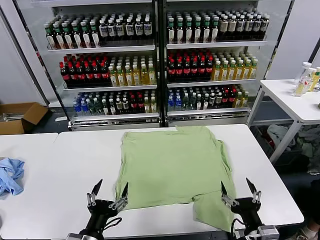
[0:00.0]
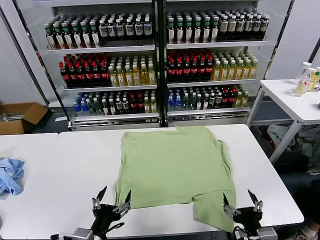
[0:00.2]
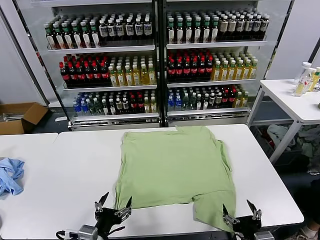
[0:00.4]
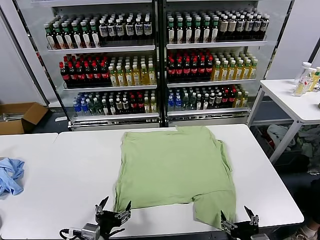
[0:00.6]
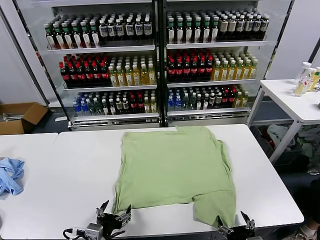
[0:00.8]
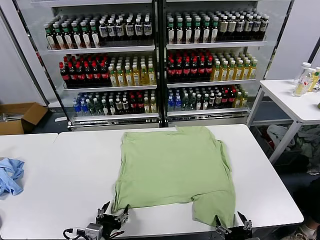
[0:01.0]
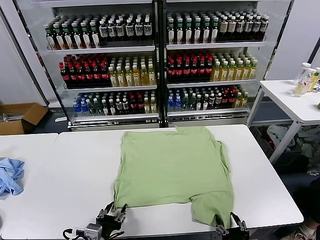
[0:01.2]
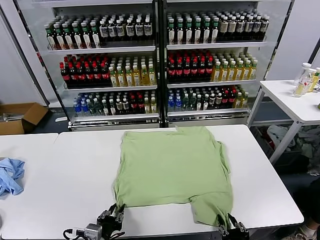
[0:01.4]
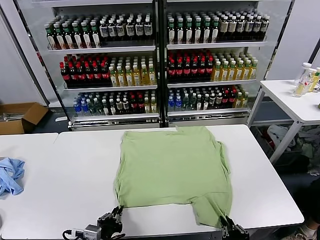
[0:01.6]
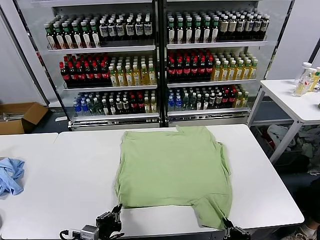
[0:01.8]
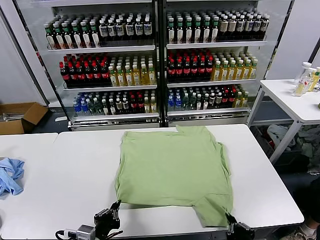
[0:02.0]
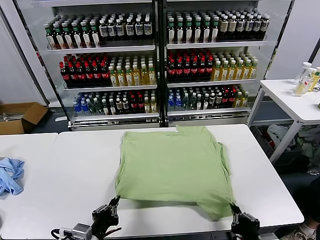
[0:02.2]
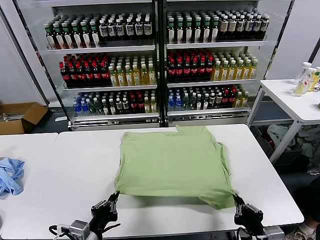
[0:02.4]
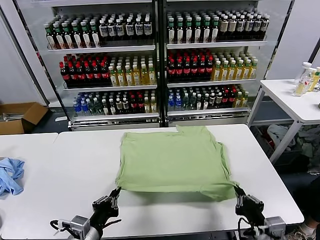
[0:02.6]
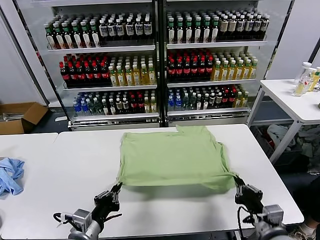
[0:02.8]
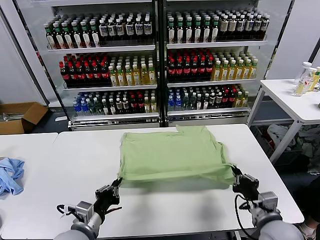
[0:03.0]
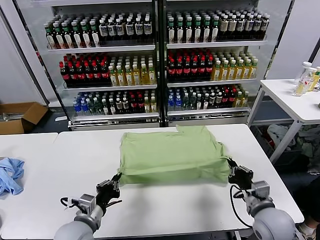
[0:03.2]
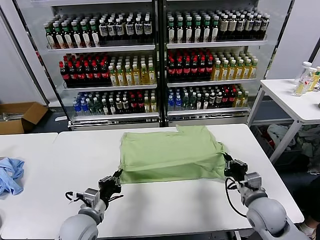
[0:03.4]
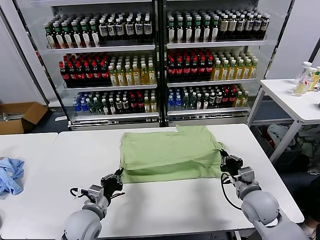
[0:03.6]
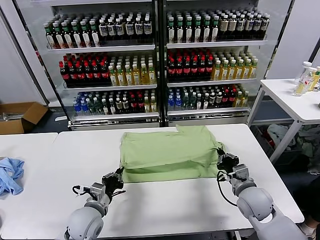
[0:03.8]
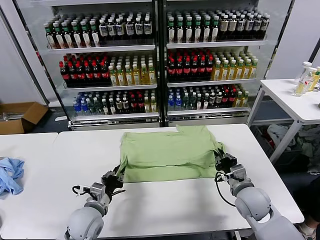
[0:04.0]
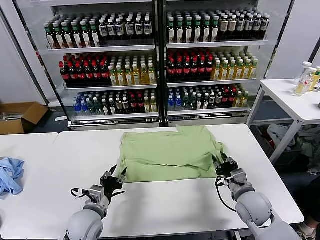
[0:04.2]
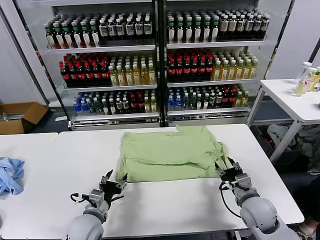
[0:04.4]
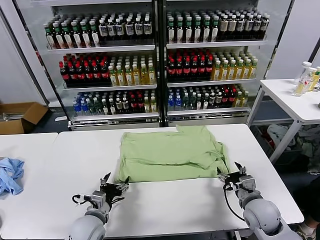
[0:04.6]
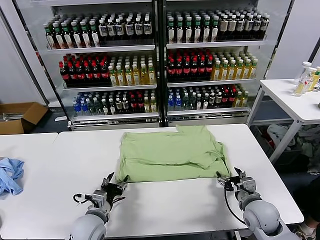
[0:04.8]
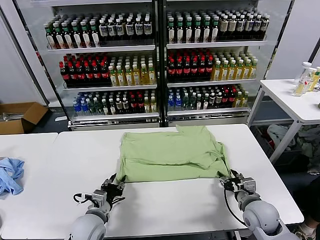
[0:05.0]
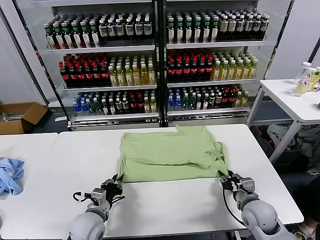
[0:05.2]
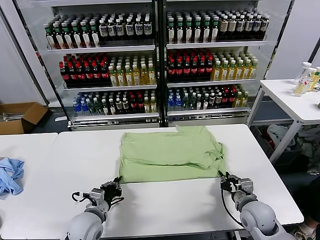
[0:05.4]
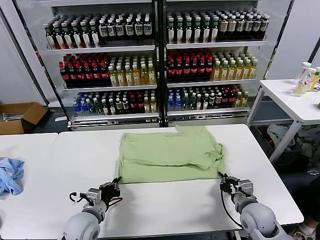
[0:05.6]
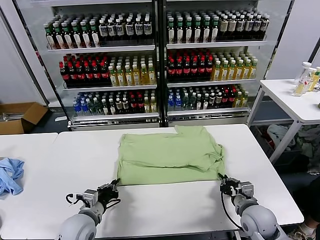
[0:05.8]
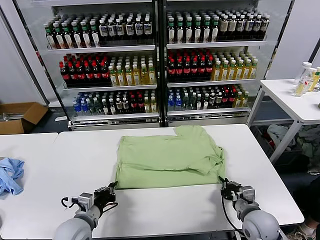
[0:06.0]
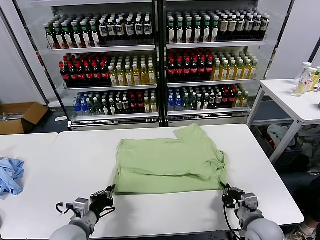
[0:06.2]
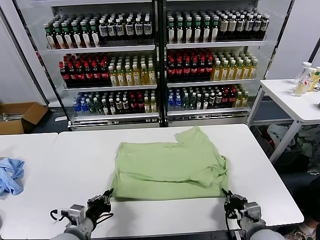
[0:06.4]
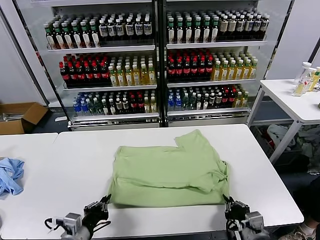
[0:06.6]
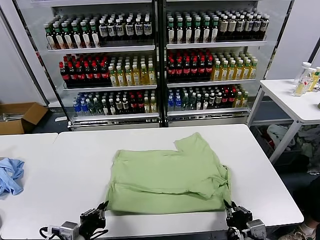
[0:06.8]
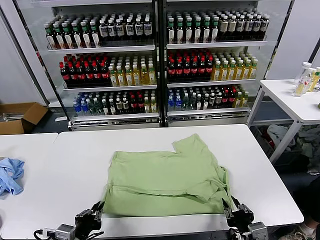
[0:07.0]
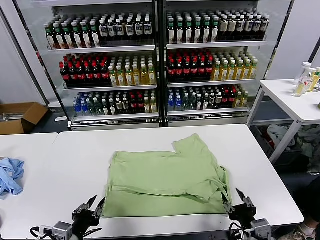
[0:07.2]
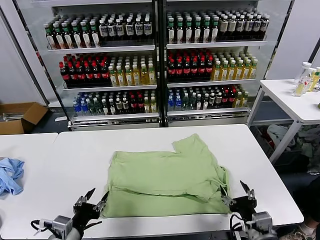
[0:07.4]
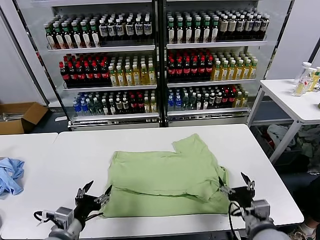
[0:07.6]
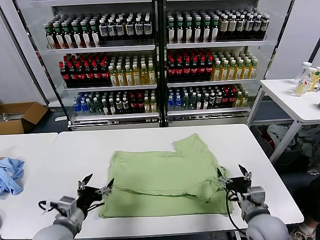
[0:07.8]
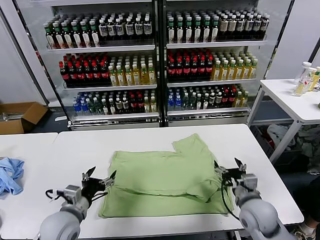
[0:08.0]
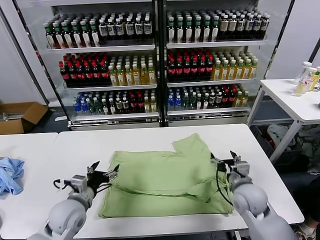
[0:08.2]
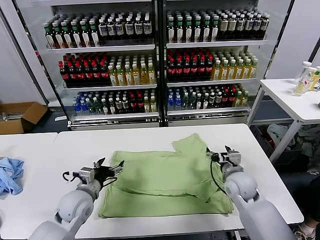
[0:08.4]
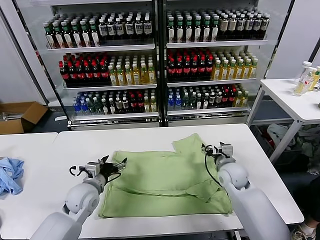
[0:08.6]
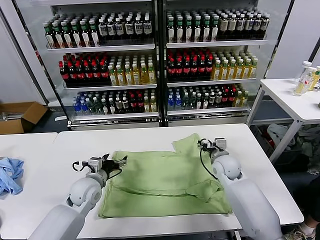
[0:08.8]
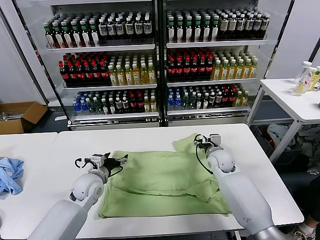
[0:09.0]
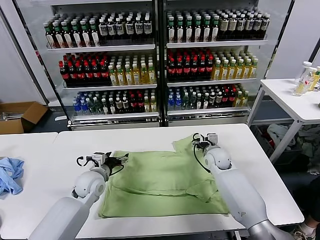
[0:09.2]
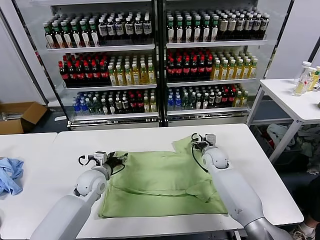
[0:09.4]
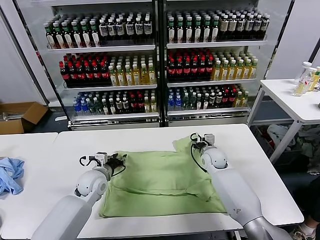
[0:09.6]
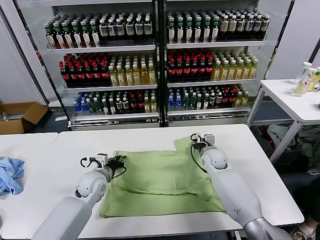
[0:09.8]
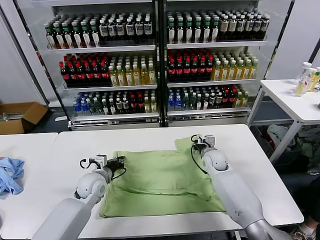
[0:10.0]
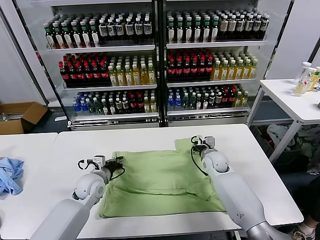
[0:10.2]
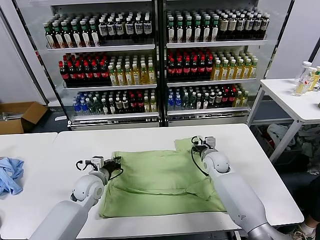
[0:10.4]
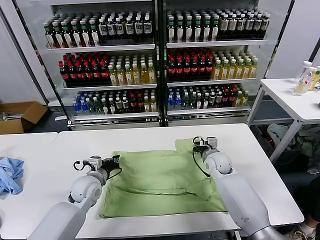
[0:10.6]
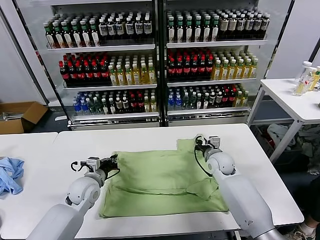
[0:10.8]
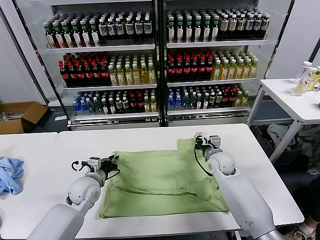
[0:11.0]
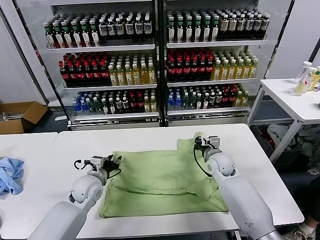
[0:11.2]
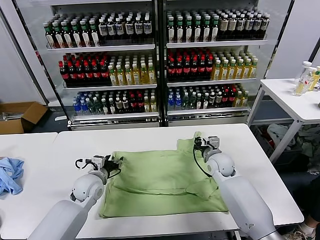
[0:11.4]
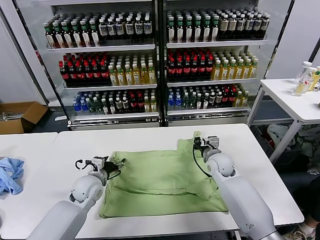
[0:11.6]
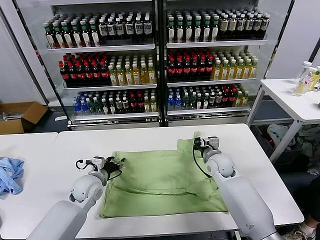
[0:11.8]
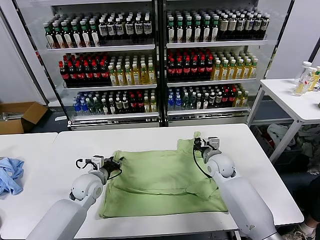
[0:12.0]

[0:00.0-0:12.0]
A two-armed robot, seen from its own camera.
Task of the whole recording: fold and organize the clothes.
Step, 0.0 to 1.6 s: use both grippers simultaneously to clamp the lower edge of the clothing fabric.
Step, 2.0 to 4.2 s: use both grippers to drag the lower edge of the fabric forward and fold it over the upper edge.
Step, 4.4 to 7.0 s: Drag the clothes downward with both gripper.
Step, 7.2 to 10.2 s: use both grippers simultaneously to clamp the upper edge of the clothing fabric.
1.6 to 3.0 s: The left gripper is displaced forward by approximately 5 cm; the right gripper goes roughly 15 cm forward.
3.0 to 4.4 s: The left gripper heads downward and forward, covering some 5 cm, and opens up, while the right gripper is displaced forward by approximately 5 cm, and opens.
4.4 to 6.0 s: The left gripper closes up; the right gripper moves some 5 cm, and closes up.
6.0 to 7.6 s: The right gripper goes some 5 cm upward, travels backward and back again, approximately 10 cm each way, and opens its fingers, while the left gripper shifts about 10 cm backward and upward, and opens its fingers.
7.6 to 9.0 s: Both grippers move forward, some 25 cm.
9.0 to 10.4 s: The left gripper closes its fingers. Meanwhile the right gripper closes its fingers.
10.4 to 12.0 s: The left gripper opens its fingers.

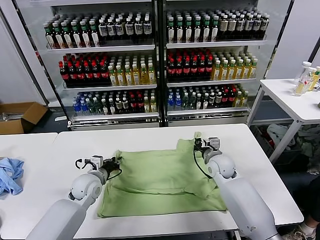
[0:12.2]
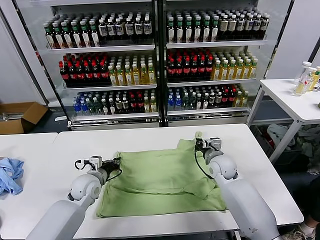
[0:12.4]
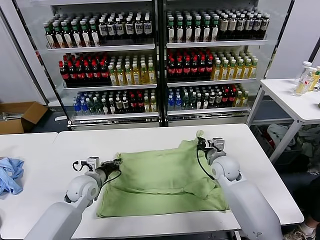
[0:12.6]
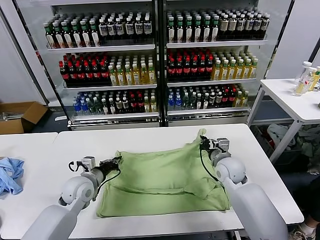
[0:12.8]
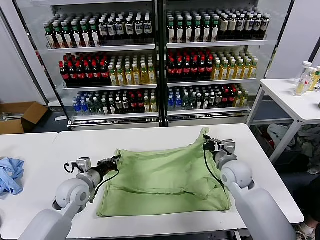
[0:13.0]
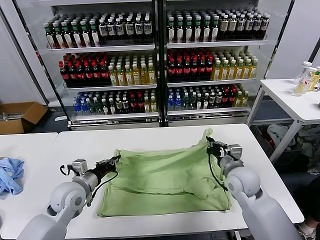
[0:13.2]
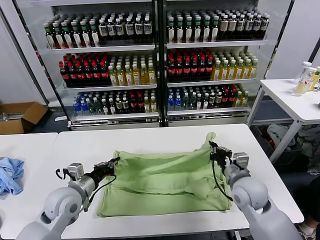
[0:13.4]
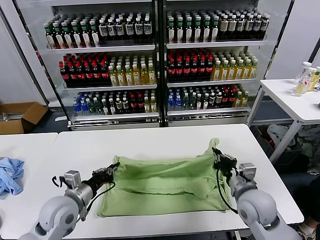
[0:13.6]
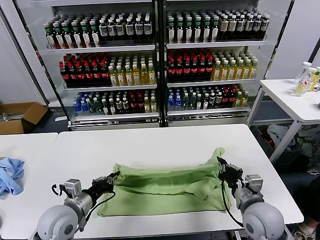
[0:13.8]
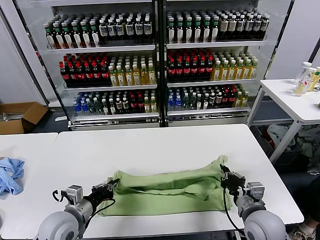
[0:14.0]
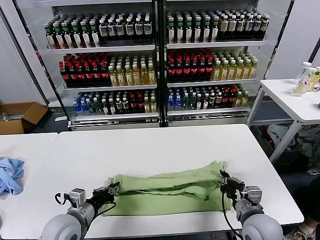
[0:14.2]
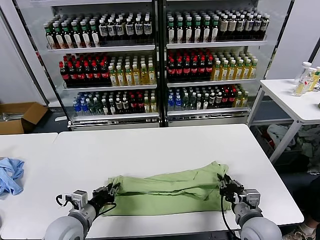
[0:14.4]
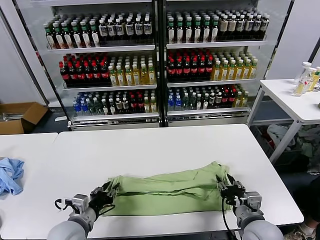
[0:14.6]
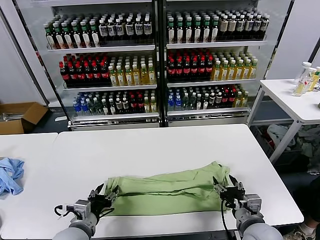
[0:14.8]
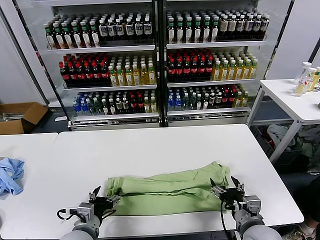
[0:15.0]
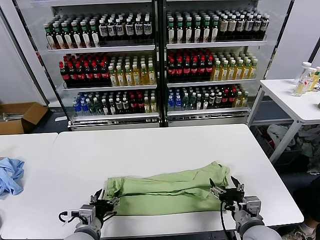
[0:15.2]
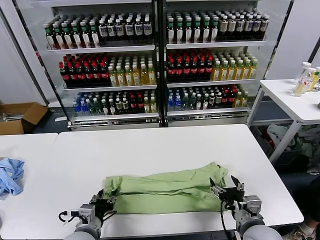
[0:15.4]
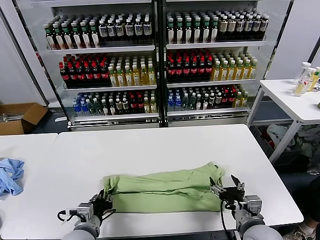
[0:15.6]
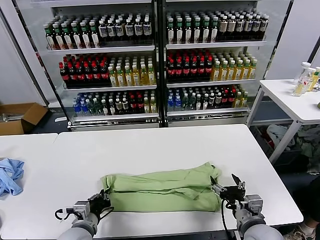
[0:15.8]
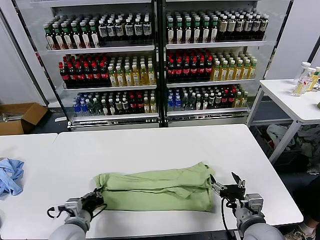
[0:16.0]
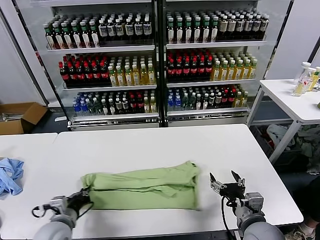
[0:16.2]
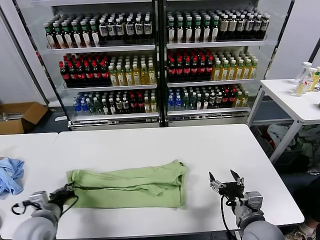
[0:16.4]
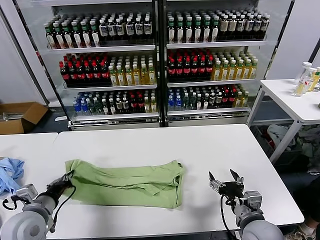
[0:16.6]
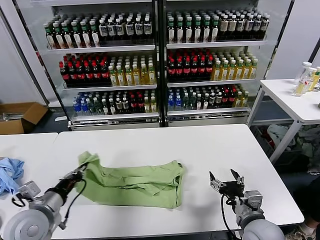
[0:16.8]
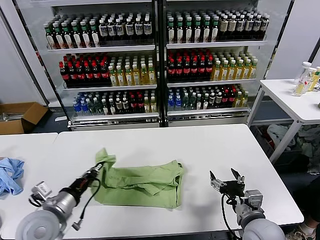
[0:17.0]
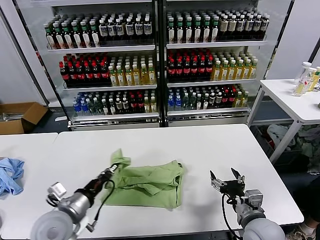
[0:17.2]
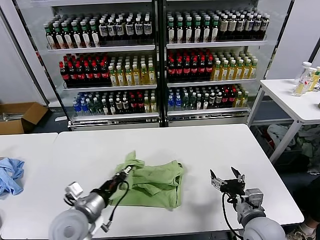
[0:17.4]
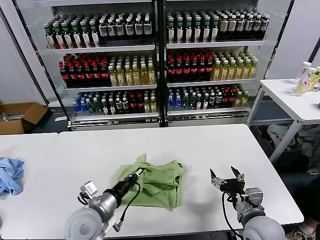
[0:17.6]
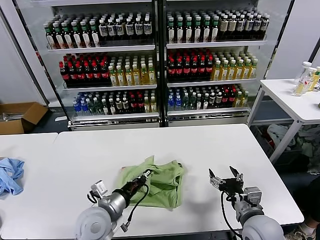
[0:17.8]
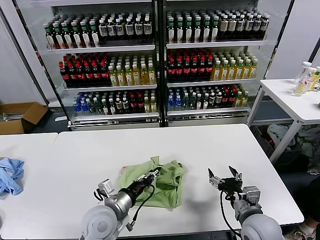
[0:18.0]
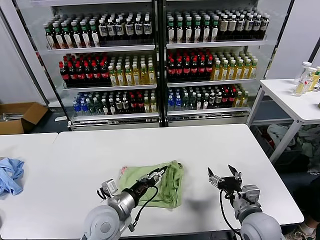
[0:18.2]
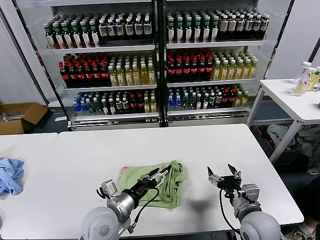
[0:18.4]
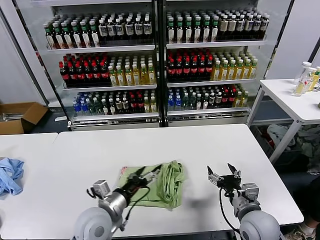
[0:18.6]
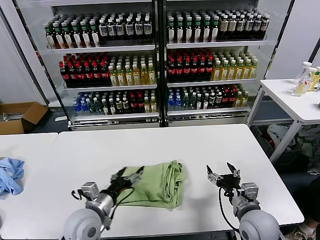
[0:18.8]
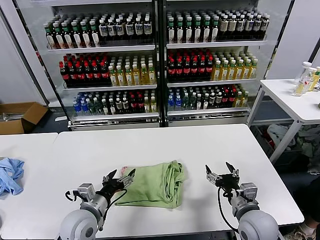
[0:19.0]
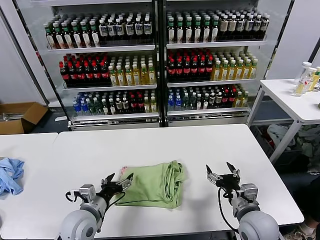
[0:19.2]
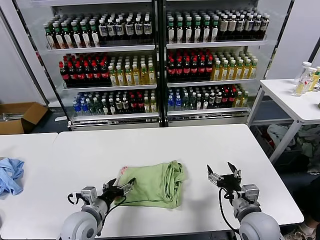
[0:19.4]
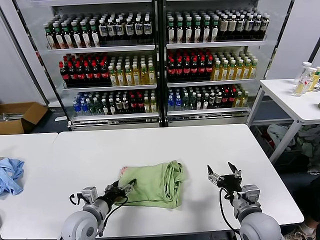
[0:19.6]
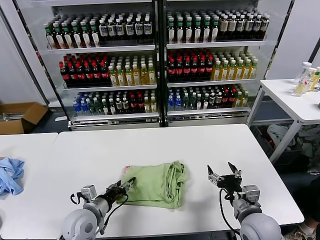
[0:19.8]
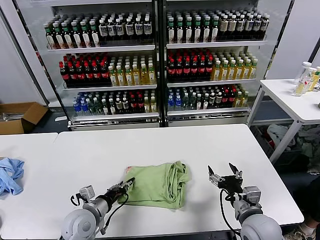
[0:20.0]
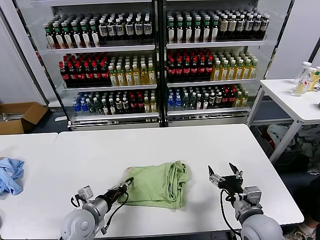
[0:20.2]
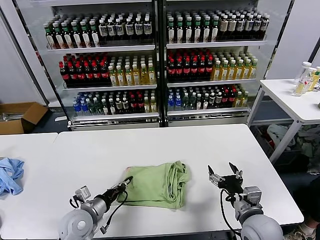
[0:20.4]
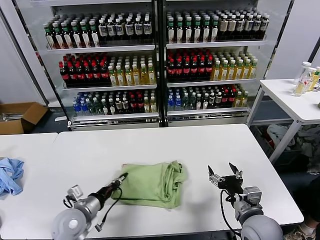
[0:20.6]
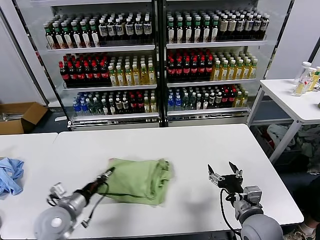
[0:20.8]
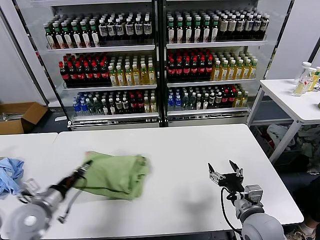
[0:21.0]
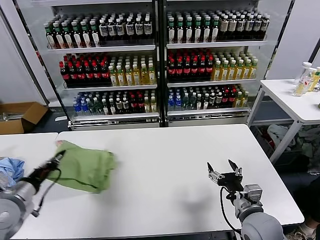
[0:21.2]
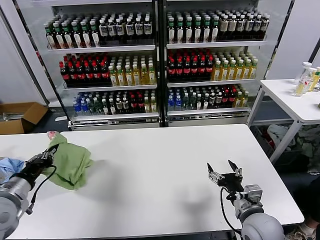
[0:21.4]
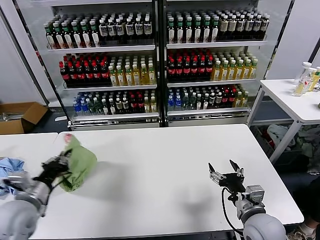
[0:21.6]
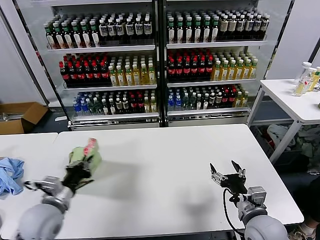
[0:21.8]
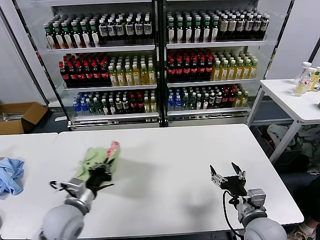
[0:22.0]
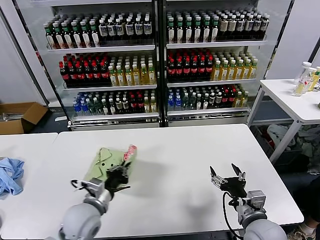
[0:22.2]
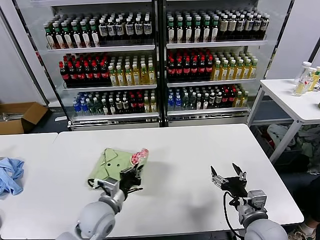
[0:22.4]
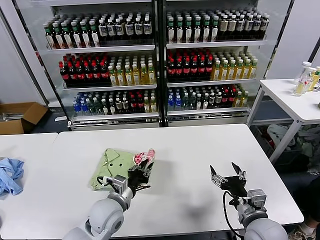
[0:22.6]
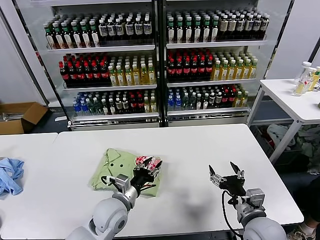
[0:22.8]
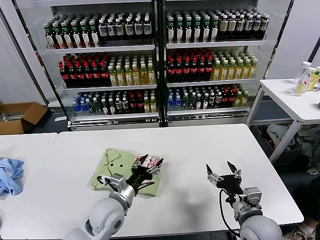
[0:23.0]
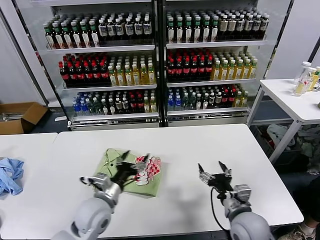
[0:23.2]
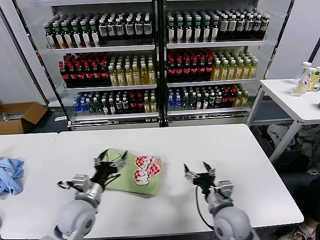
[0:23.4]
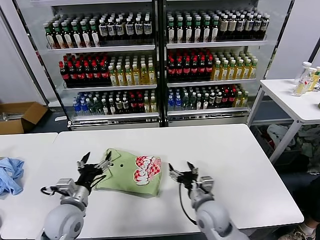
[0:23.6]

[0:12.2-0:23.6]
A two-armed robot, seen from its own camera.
Task of the whole recording: fold and organize the clothes.
Step, 12.2 to 14.6 s: use both grippers to drag the upper edge of the fabric backward and fold it over the lower edge.
Step, 14.8 to 15.8 s: use the left gripper to clamp the left edge of the fabric.
Step, 16.0 to 18.2 s: use the left gripper to drag the left edge of the fabric to the left and folds it over the right edge.
Step, 18.4 to 22.8 s: Flip the folded clothes over with left gripper.
12.2 to 13.6 s: The right gripper moves backward, approximately 20 cm; the left gripper is displaced backward and upward by roughly 15 cm.
13.6 to 15.0 s: The left gripper is displaced backward and downward by roughly 10 cm, and opens its fingers. The right gripper shifts about 5 cm backward, and opens its fingers.
15.0 to 16.4 s: The left gripper goes roughly 10 cm to the left, and closes.
16.4 to 17.8 s: The left gripper heads to the right, covering approximately 15 cm.
17.8 to 19.4 s: The left gripper is displaced to the left by approximately 5 cm, and opens its fingers.
19.4 to 20.8 s: The left gripper moves to the left, approximately 5 cm, and closes up.
20.8 to 22.2 s: The left gripper shifts roughly 10 cm to the right.
22.2 to 23.6 s: The left gripper travels to the right and back again, about 10 cm each way, and opens its fingers. The right gripper goes roughly 15 cm to the left and forward.
